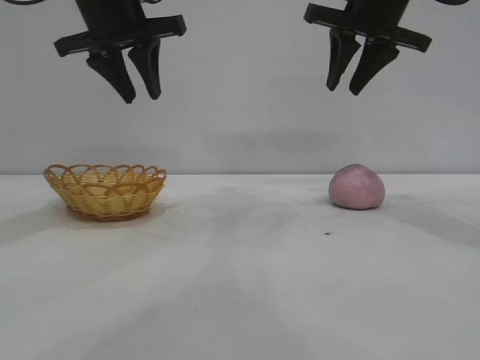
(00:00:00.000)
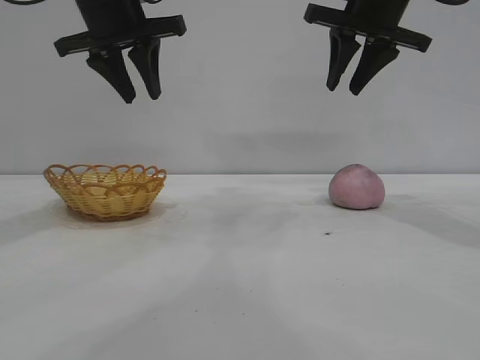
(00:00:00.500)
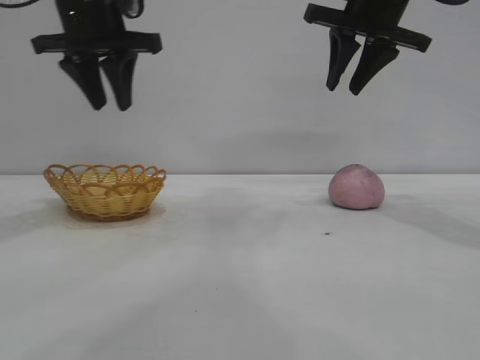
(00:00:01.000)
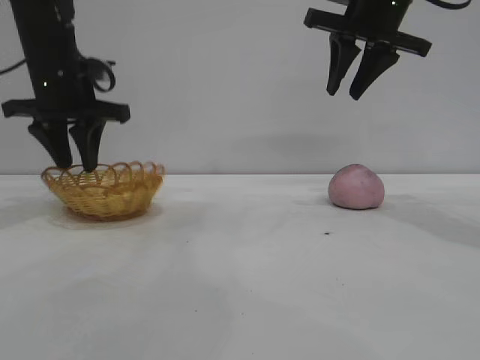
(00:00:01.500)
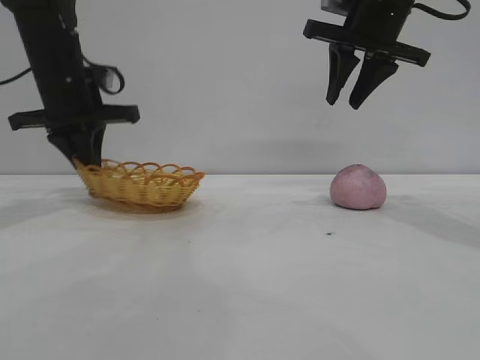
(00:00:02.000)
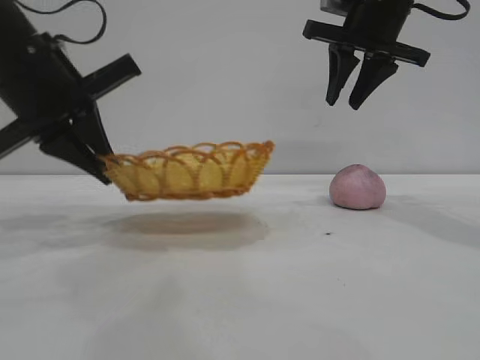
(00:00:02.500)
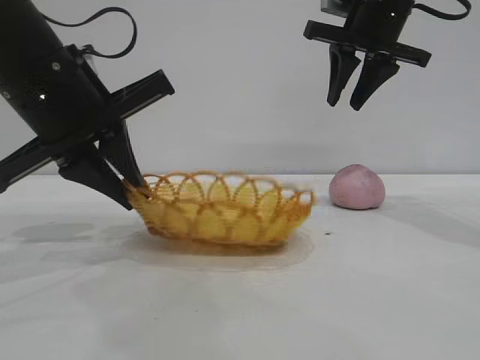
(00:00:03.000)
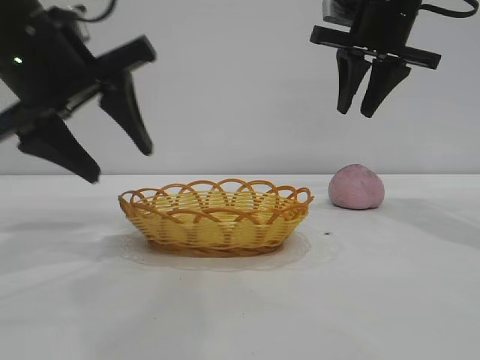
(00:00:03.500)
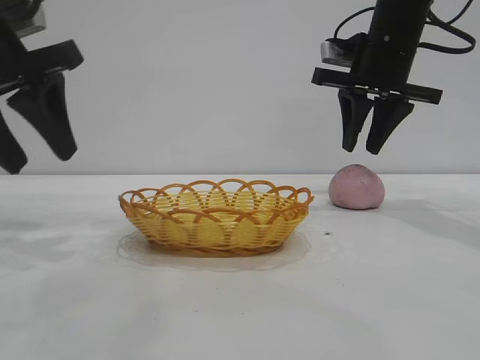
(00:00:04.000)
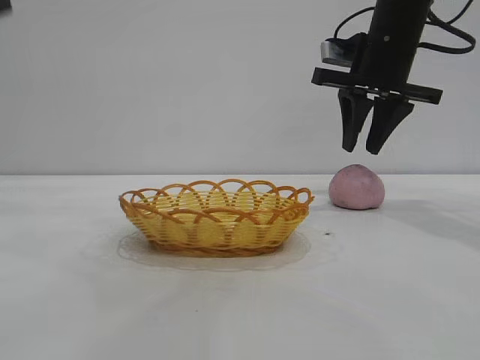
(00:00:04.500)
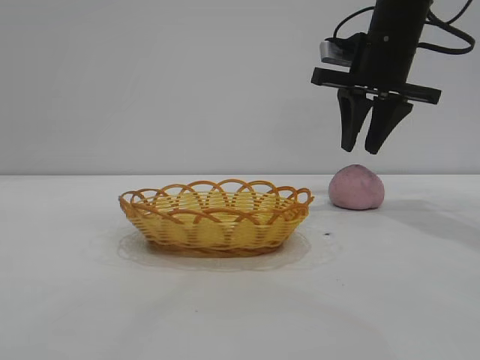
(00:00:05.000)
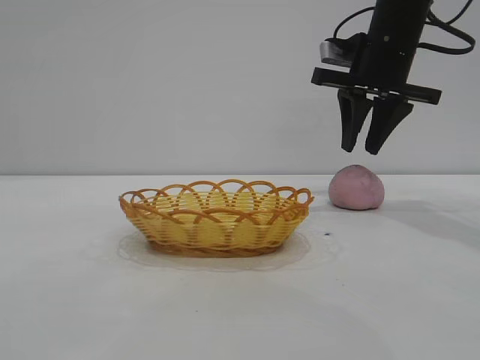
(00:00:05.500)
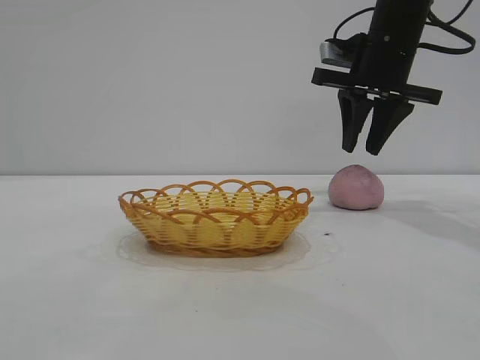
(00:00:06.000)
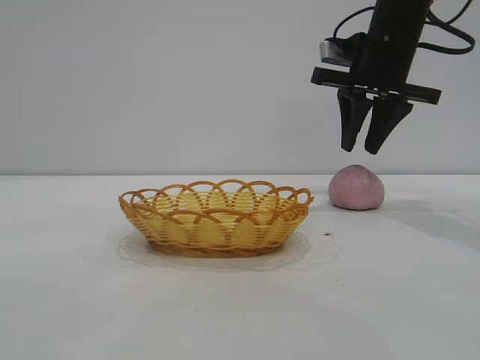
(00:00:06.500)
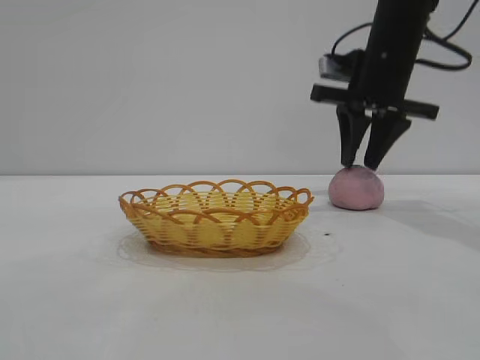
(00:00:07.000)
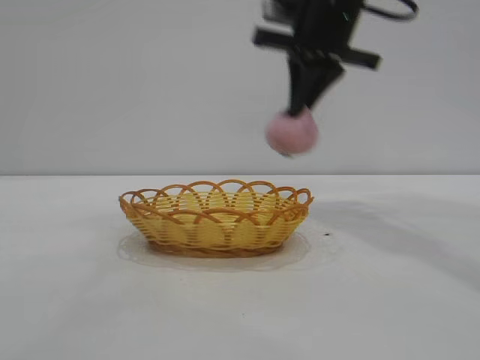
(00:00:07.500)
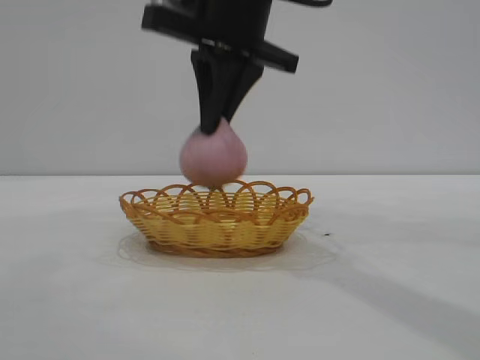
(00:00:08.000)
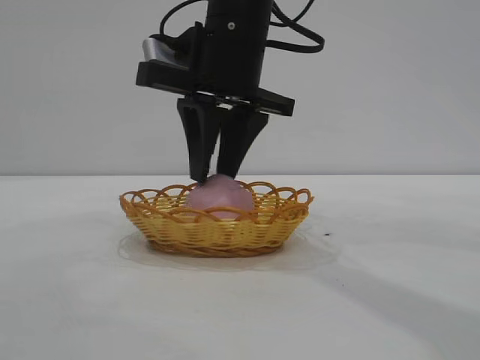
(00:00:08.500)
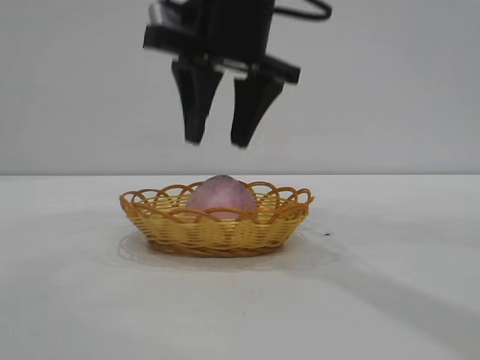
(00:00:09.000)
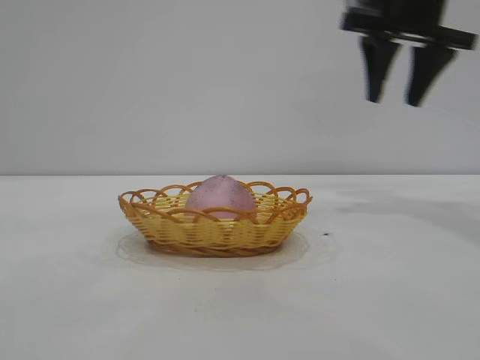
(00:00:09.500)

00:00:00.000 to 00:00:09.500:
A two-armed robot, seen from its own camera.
Task of the whole recording: pick up the peach and put it into the basket.
Step, 00:00:00.000 to 00:00:03.500: Move the basket to the center of view.
Step, 00:00:04.000 to 00:00:07.000: Pick up the peach.
Step, 00:00:07.500 to 00:00:09.000: place the peach into the basket.
